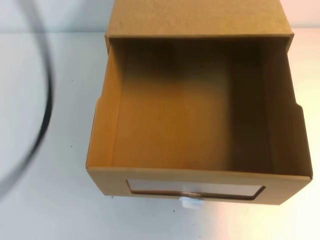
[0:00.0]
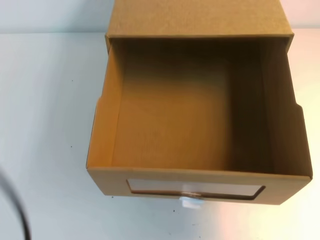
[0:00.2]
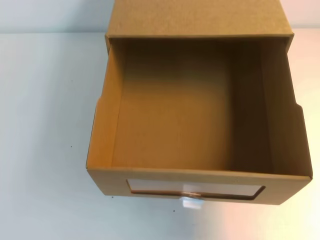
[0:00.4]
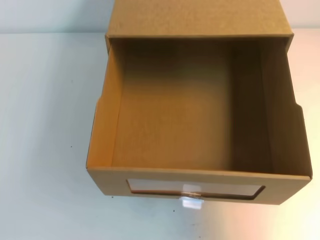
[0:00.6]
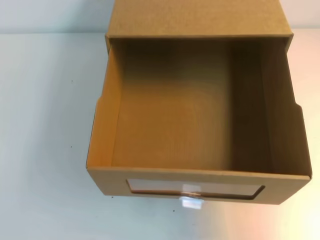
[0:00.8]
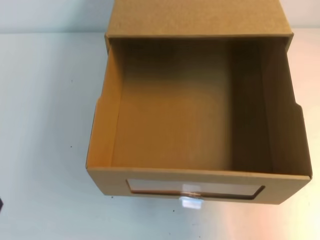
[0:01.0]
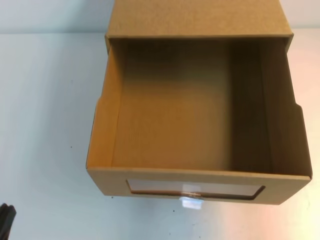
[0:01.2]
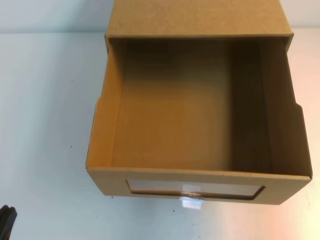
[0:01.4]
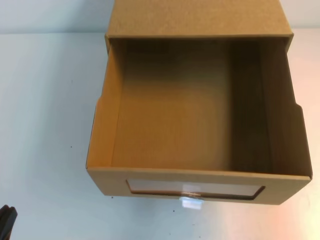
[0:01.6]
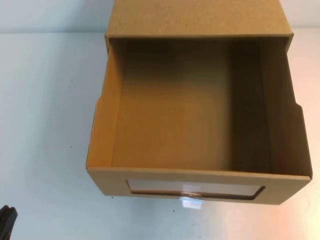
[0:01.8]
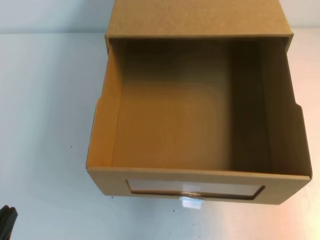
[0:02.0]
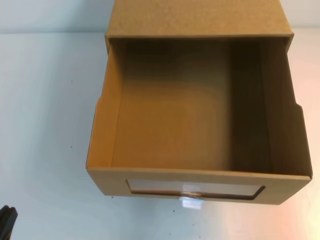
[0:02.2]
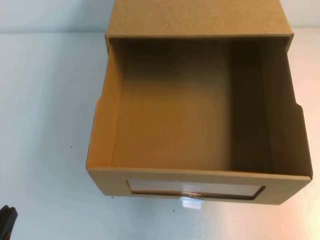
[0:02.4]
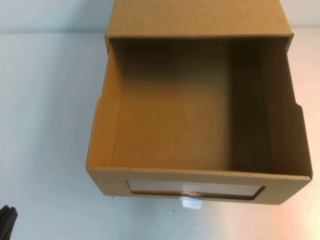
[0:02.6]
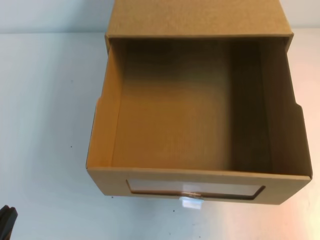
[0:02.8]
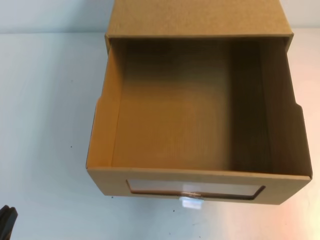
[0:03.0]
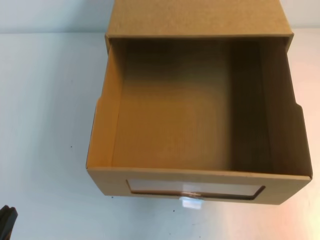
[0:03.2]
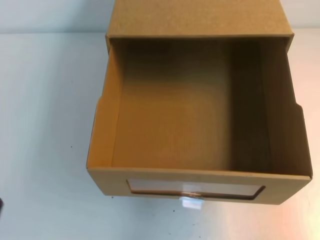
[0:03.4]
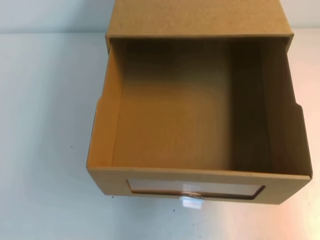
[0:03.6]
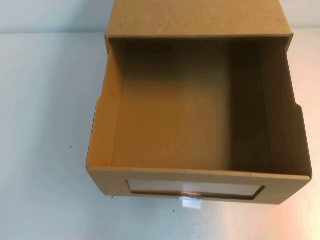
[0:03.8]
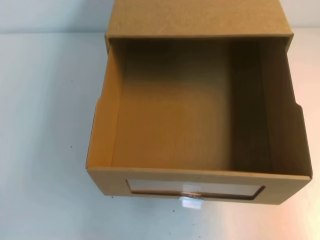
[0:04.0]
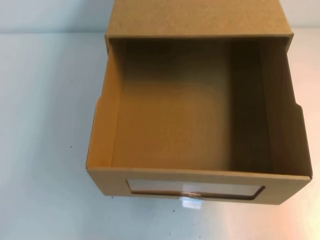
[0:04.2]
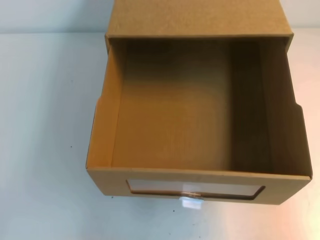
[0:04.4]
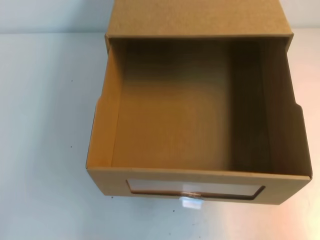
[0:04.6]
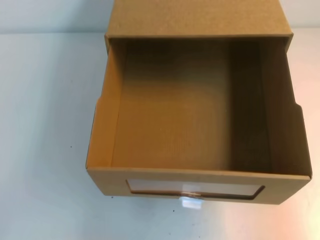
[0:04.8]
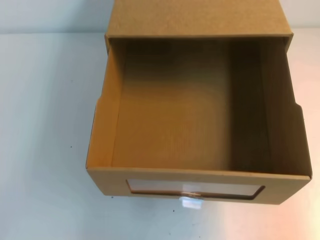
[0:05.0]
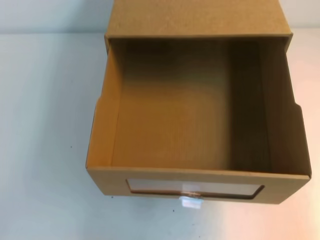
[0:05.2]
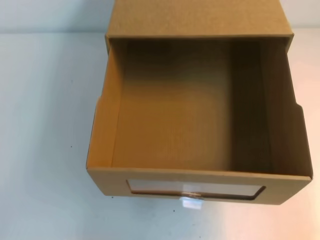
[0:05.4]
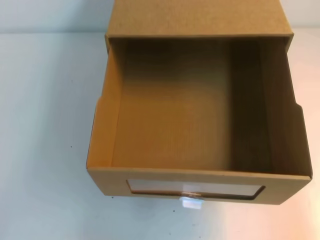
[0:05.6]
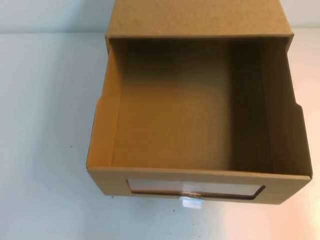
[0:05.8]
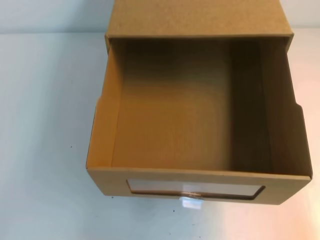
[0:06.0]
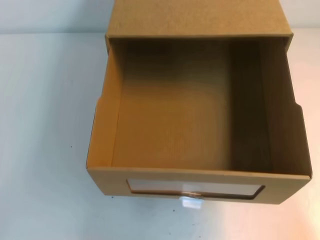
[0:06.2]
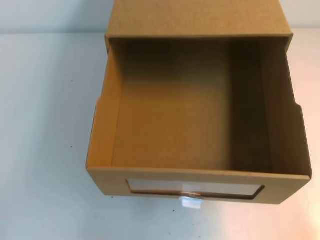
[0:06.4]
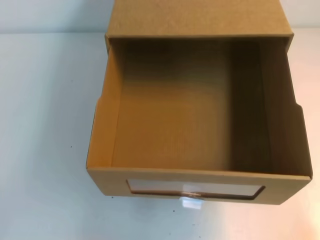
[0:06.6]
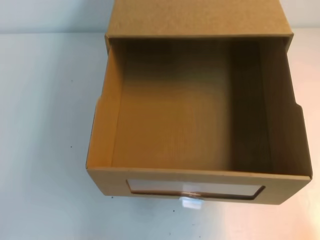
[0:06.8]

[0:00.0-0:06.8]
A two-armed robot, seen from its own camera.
Task of the whole recording: open the shoebox on the table.
Step, 0:00.0 to 0:06.8: Open the shoe box.
0:00.0 to 0:01.4: The right gripper travels downward, backward and to the right by some 20 cm. Meanwhile the left gripper shifts roughly 35 cm downward.

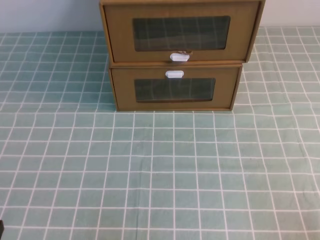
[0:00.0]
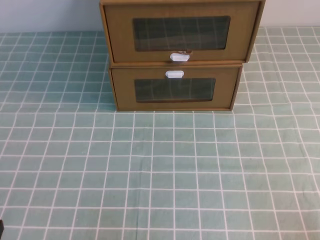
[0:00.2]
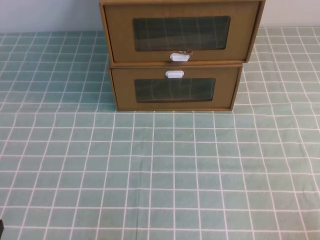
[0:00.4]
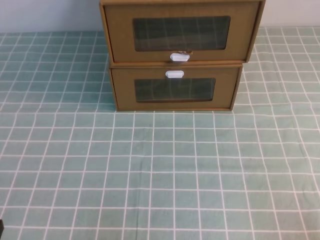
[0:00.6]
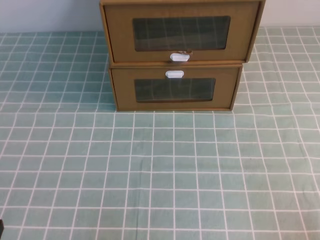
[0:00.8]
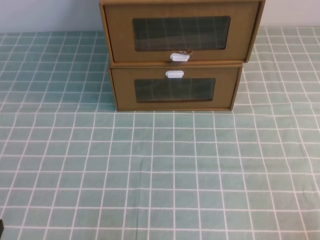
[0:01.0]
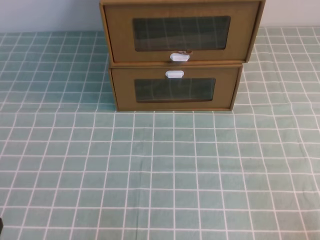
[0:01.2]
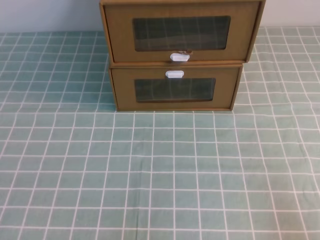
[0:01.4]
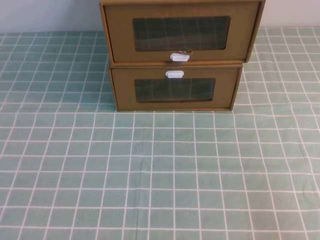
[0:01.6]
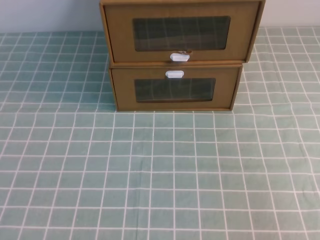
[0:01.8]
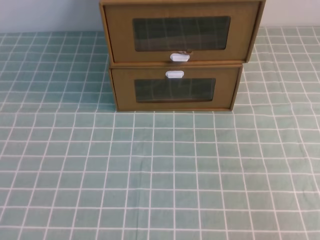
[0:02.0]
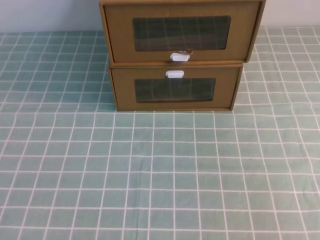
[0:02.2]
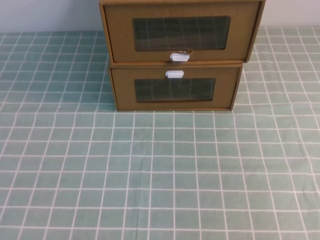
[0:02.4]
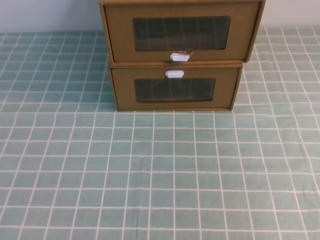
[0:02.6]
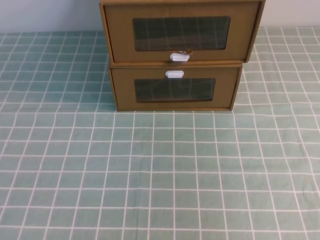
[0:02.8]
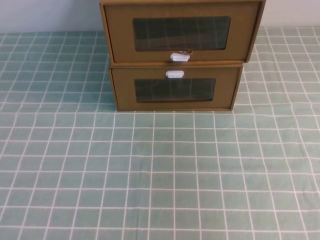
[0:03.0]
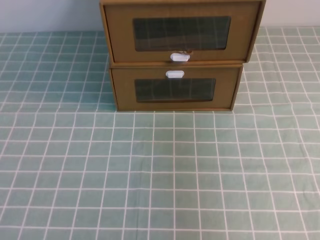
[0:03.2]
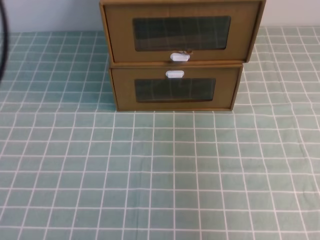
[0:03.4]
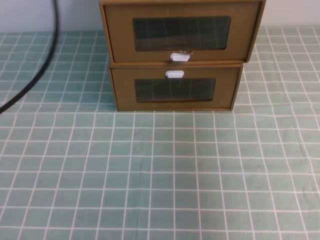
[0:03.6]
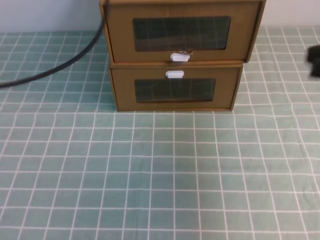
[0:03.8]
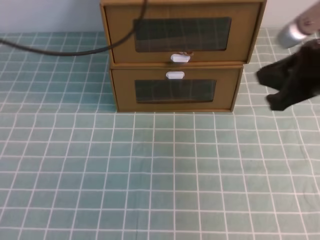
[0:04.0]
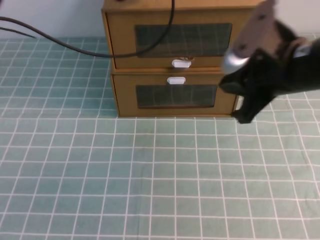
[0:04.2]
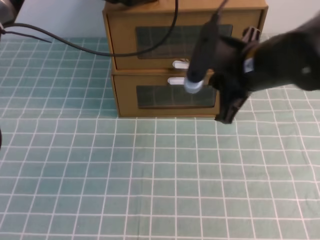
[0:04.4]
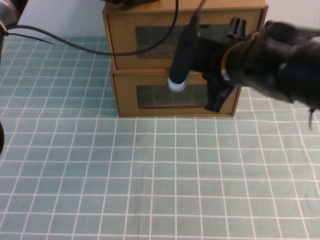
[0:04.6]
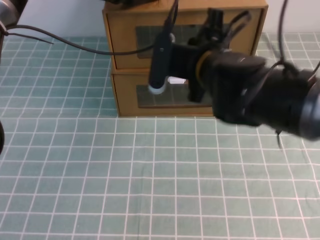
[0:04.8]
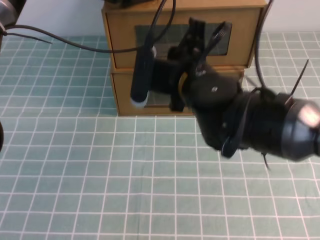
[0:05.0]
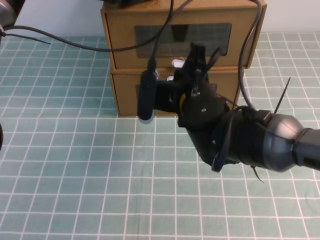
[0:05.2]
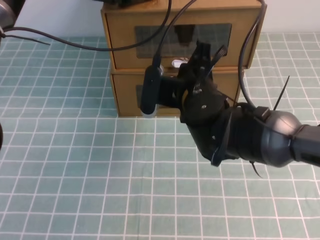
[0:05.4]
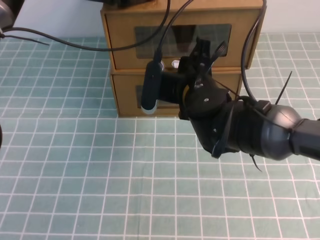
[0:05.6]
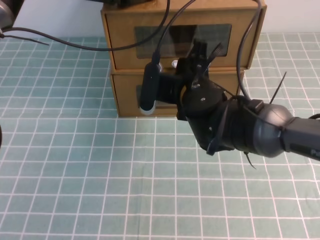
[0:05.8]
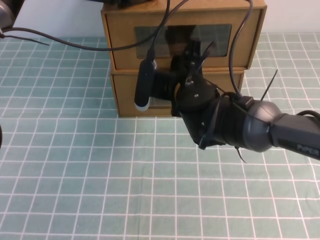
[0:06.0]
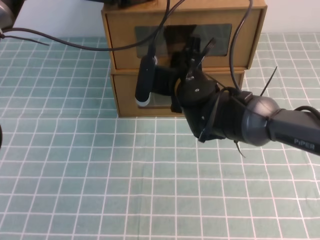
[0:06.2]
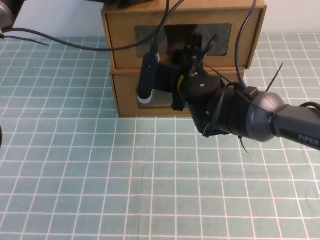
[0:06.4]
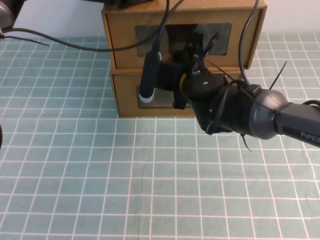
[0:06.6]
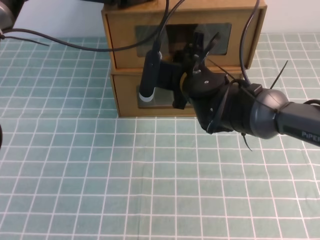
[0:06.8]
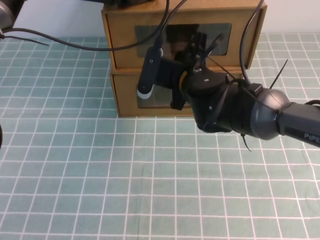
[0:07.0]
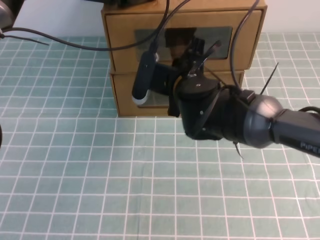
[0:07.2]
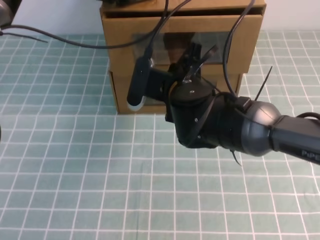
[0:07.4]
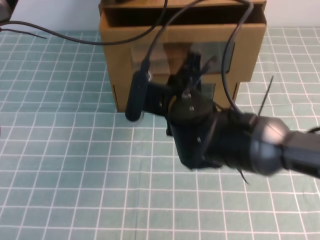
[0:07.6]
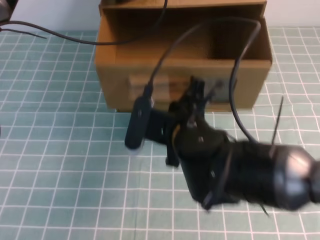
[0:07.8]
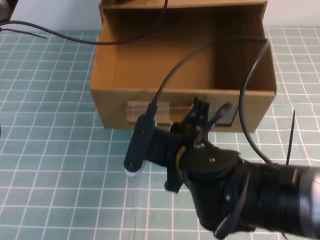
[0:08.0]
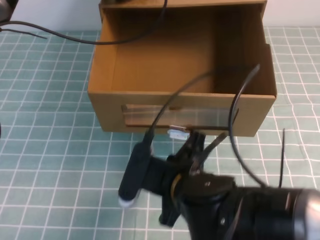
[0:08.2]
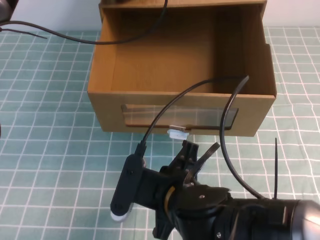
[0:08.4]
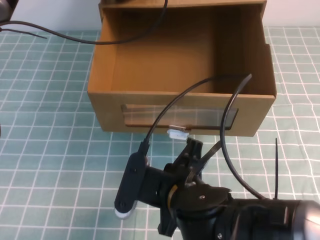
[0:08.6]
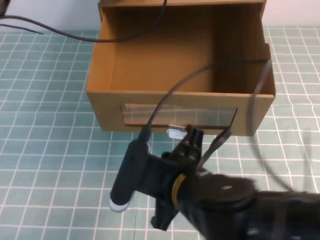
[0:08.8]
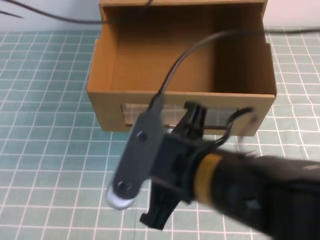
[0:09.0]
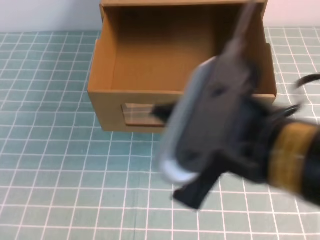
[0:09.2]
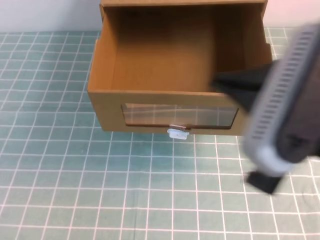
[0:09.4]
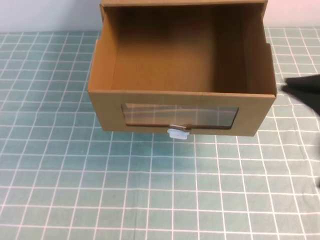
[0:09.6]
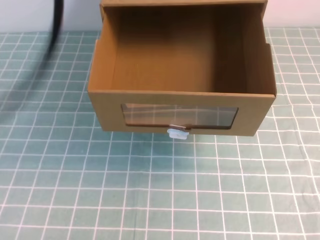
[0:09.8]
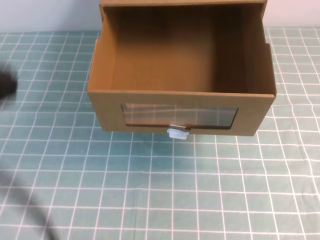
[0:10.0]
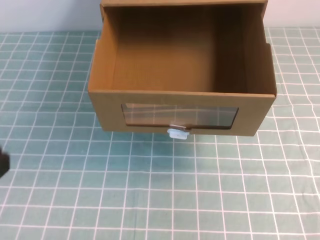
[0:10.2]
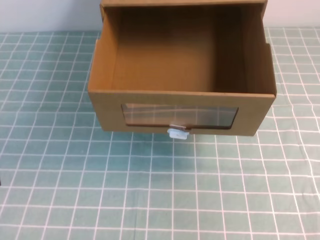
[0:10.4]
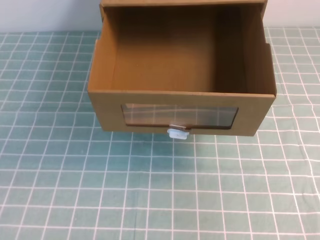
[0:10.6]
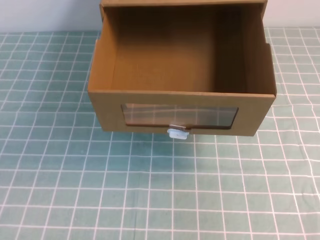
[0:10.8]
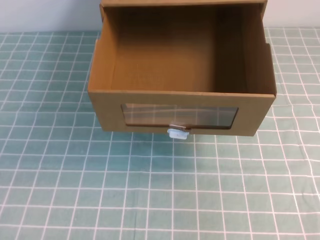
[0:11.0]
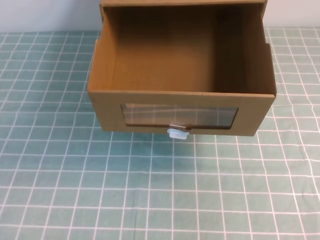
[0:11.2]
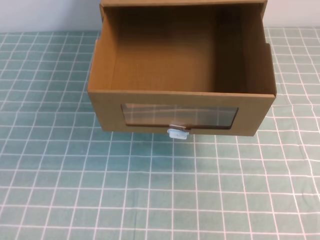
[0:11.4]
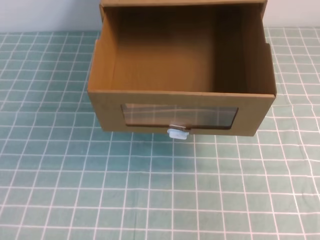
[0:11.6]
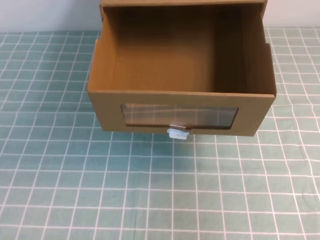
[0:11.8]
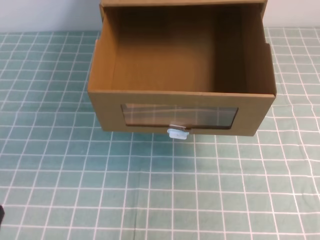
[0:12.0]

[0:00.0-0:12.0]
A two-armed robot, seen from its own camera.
Task of the whole recording: open the shoebox on the cyan tablecloth.
0:03.0 to 0:04.4: The left gripper goes approximately 40 cm forward and to the right; the right gripper moves forward, to the left and downward, about 30 cm.
0:04.4 to 0:06.0: The right gripper moves to the left, downward and forward, about 15 cm, and opens its fingers.
0:06.0 to 0:07.6: The right gripper shifts roughly 5 cm backward, and closes up.
0:07.6 to 0:09.0: The right gripper is displaced backward and upward by some 15 cm. The left gripper travels upward by about 10 cm.
0:09.0 to 0:10.4: The left gripper travels backward by about 40 cm, while the right gripper heads to the right, covering approximately 25 cm.
